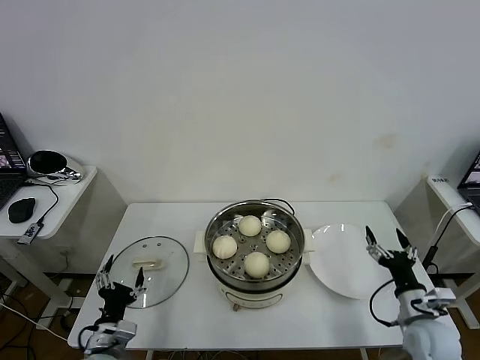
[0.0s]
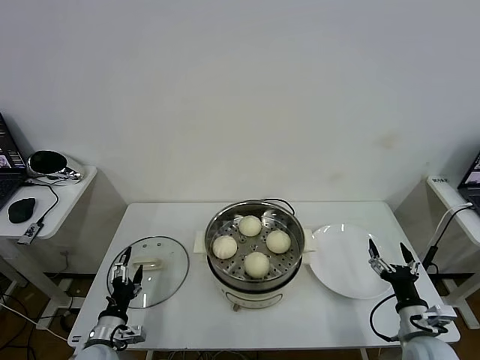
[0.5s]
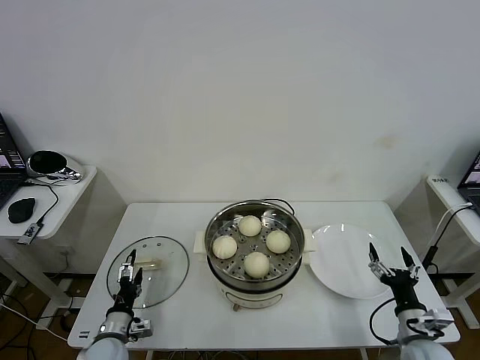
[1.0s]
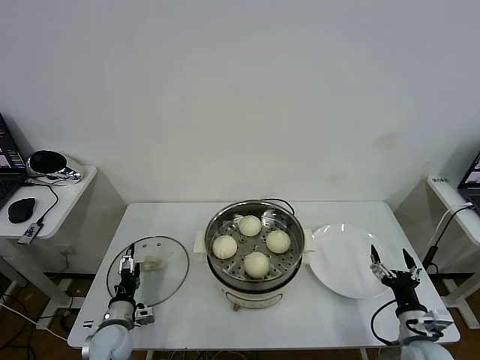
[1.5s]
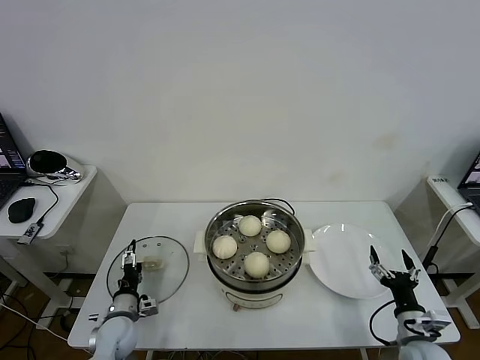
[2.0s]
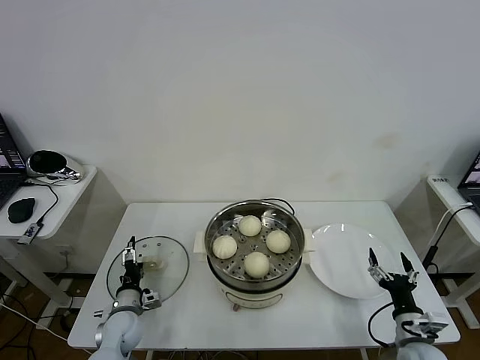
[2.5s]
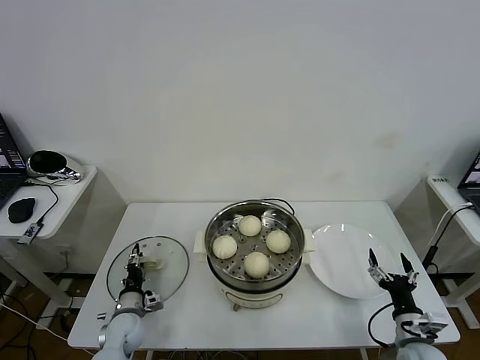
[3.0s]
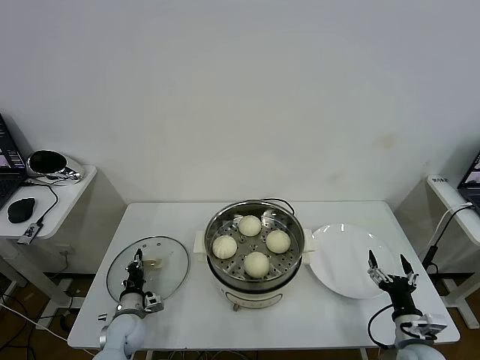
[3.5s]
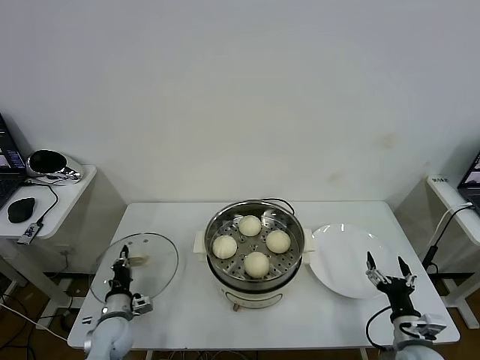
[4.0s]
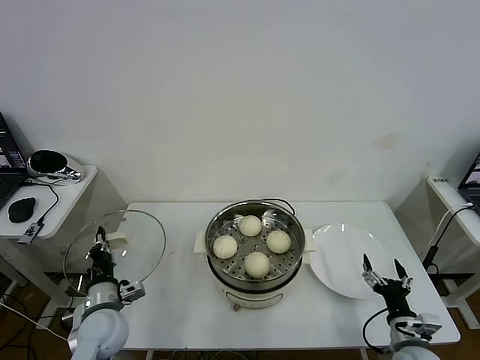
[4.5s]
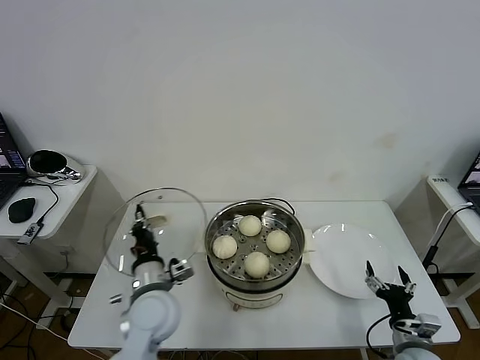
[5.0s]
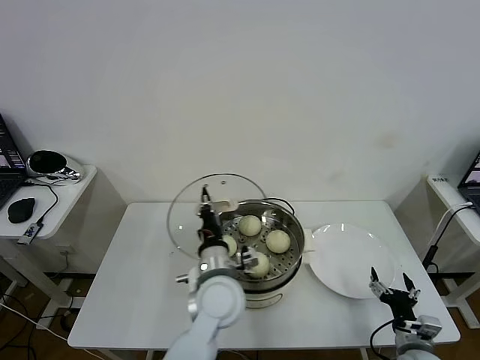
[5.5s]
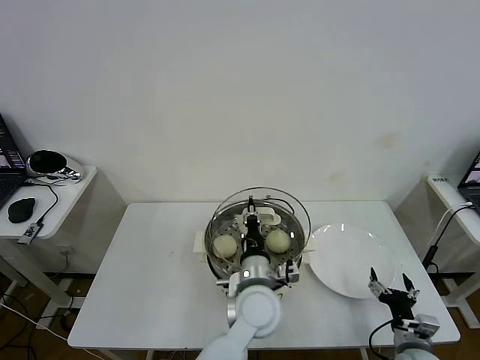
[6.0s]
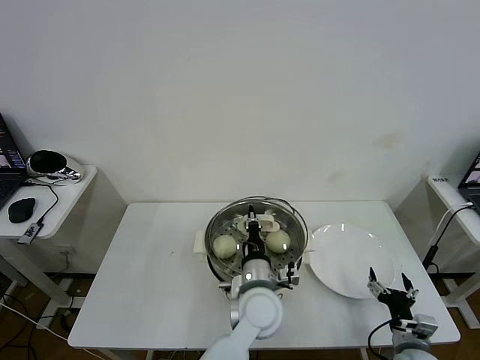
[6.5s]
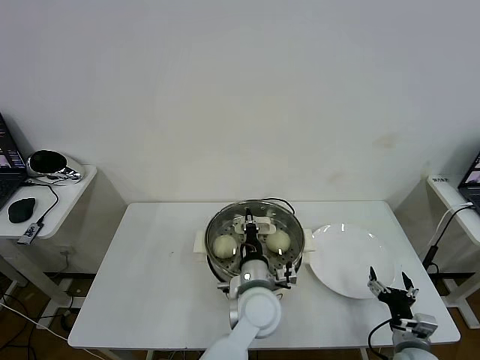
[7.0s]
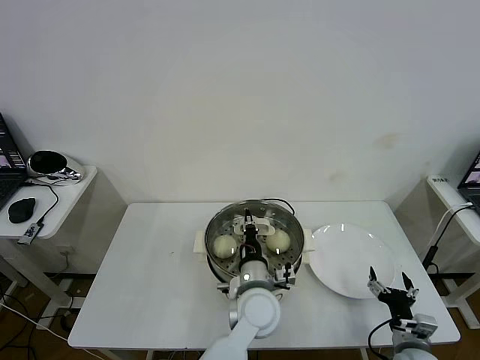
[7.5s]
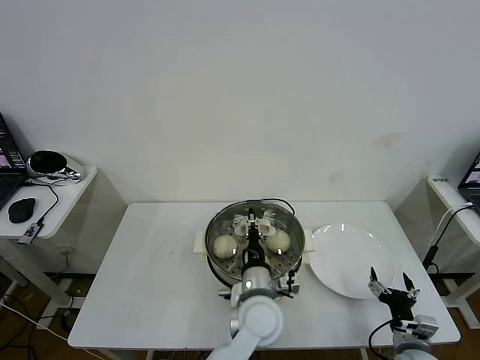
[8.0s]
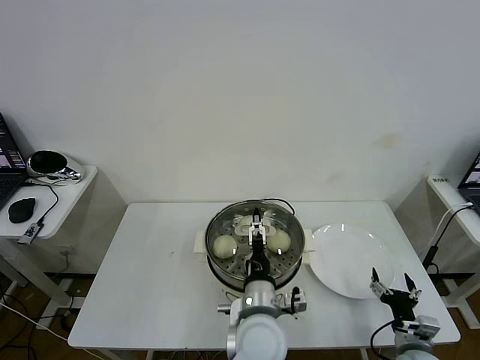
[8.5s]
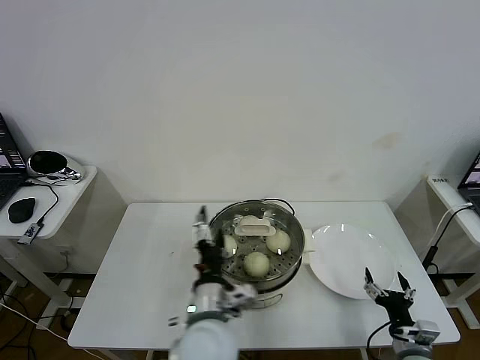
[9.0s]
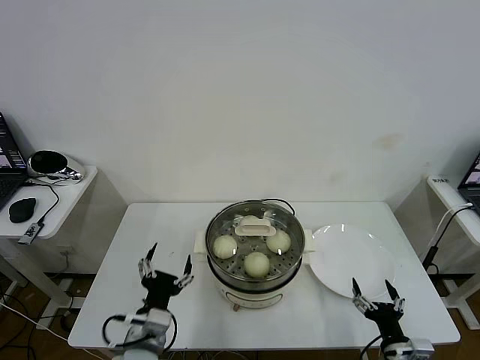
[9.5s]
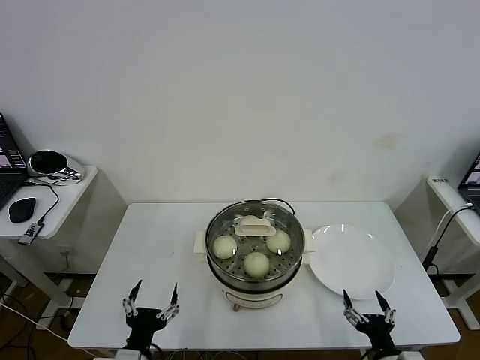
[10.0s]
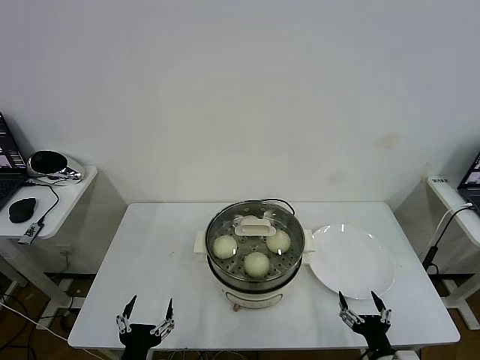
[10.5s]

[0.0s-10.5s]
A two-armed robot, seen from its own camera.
Task of the whole recording: take steamed baozi put them in steamer then cover it.
Step, 0.0s to 3.5s: Grasp the pot lid with left gripper.
Step, 4.0s to 8.5s: Place the pot lid on the steamer with left gripper.
0.0s to 2.0s: The left gripper travels forward and downward by approximately 15 cm, while the right gripper moves roughly 5 cm.
2.0s to 4.0s: The left gripper closes.
4.0s to 6.5s: The left gripper heads to the right and upward, covering some 40 cm.
6.5s to 8.5s: The left gripper moves backward, about 5 cm, and opens.
8.5s to 10.5s: The right gripper is displaced backward and to the left by some 10 cm; the left gripper moves to the left and backward, approximately 30 cm.

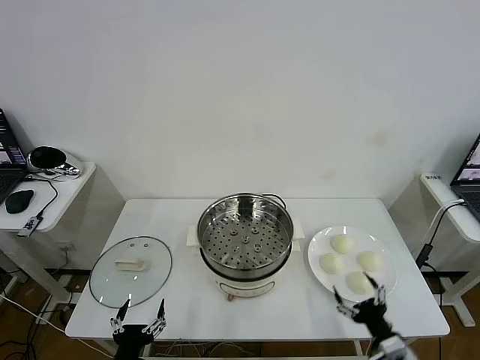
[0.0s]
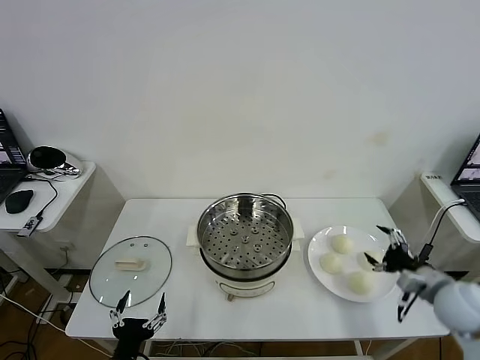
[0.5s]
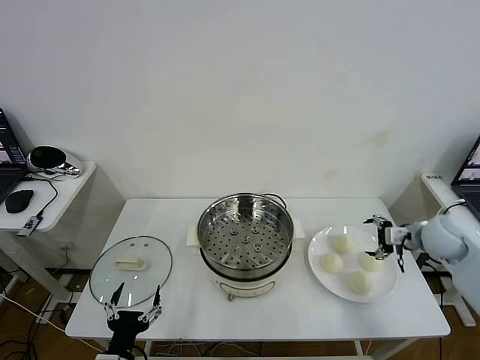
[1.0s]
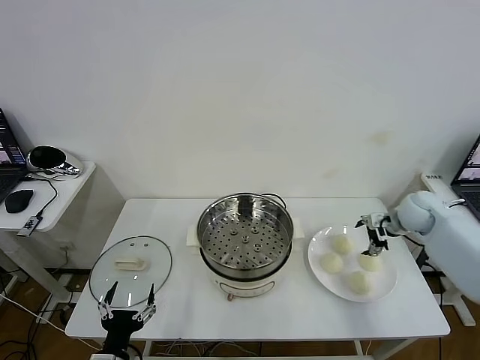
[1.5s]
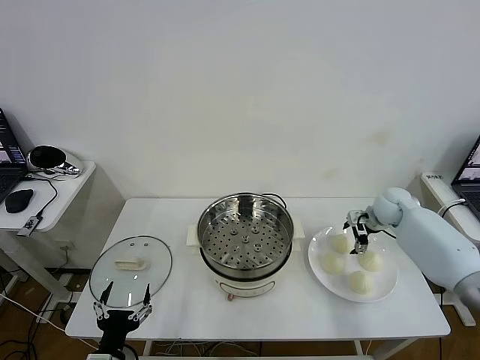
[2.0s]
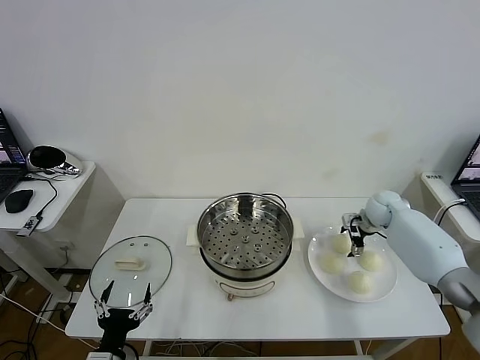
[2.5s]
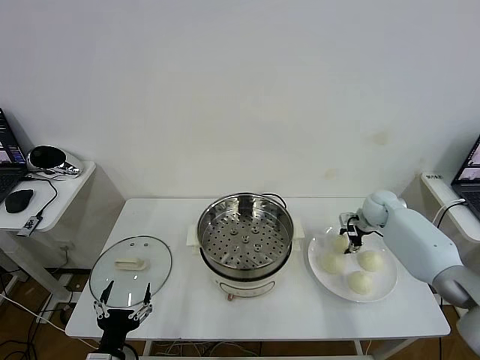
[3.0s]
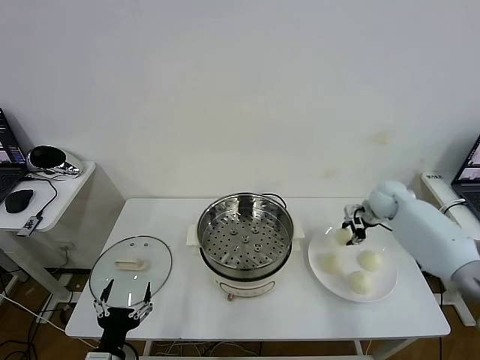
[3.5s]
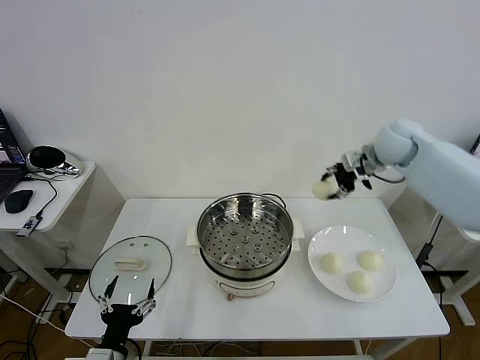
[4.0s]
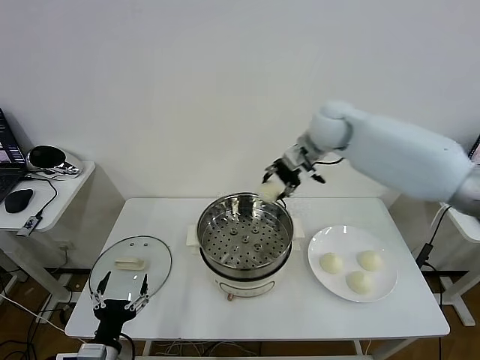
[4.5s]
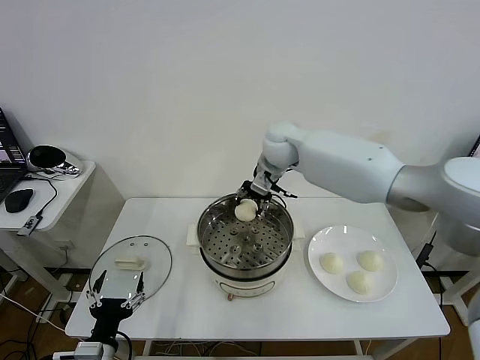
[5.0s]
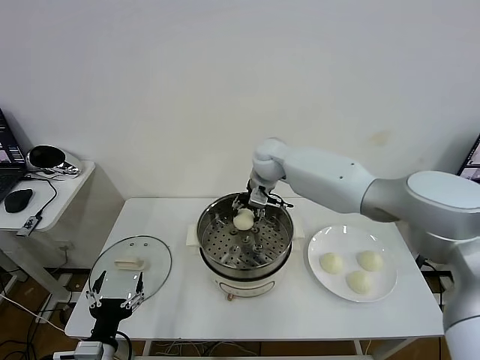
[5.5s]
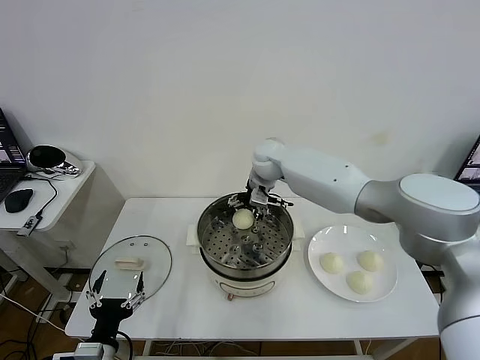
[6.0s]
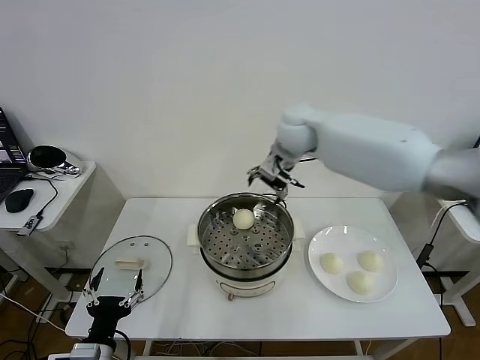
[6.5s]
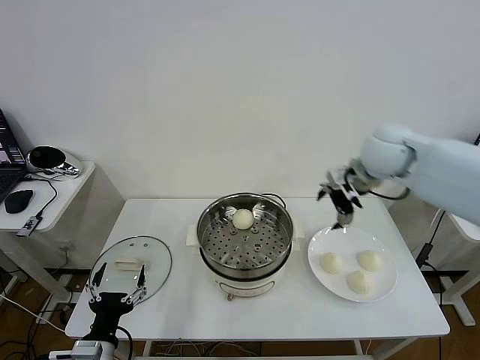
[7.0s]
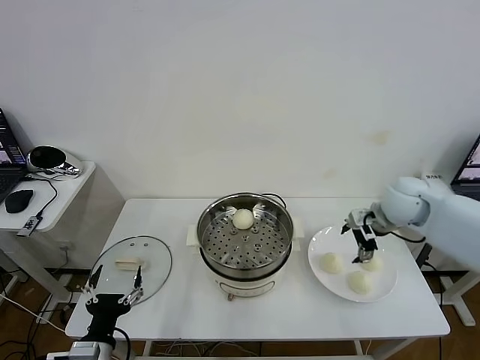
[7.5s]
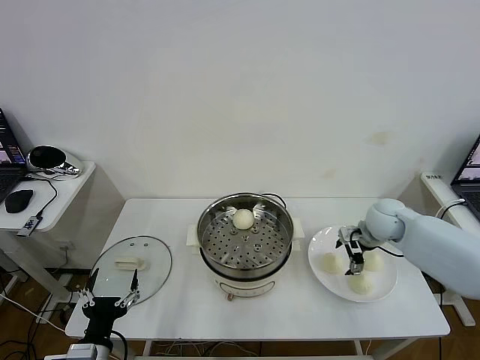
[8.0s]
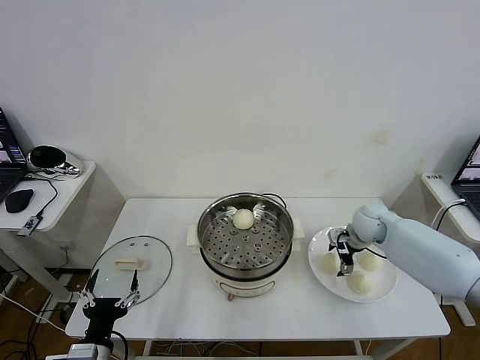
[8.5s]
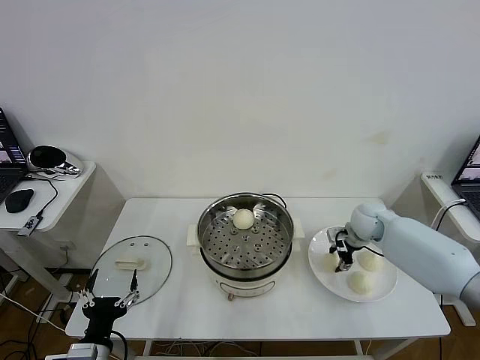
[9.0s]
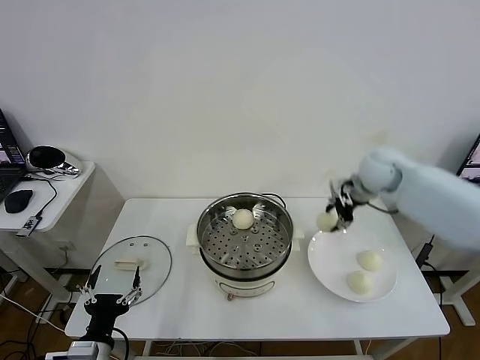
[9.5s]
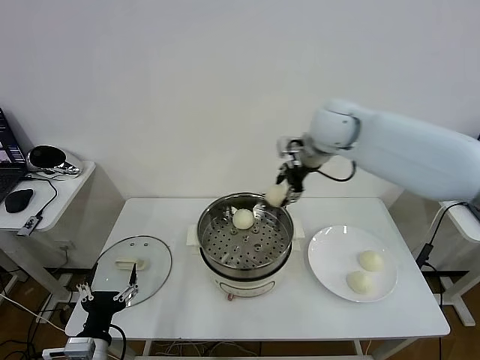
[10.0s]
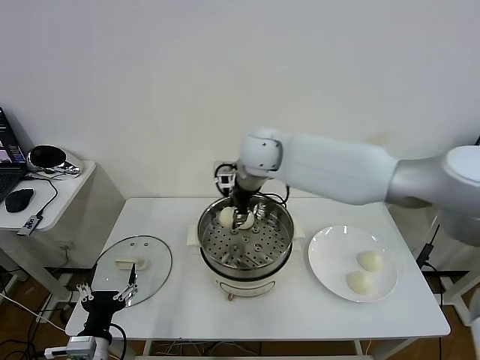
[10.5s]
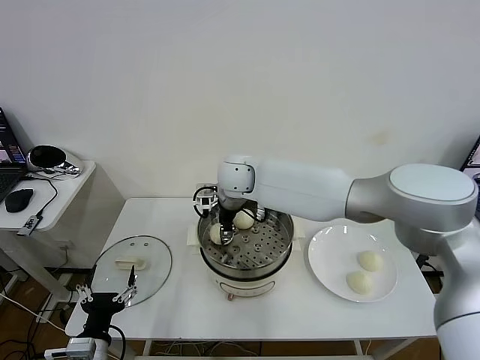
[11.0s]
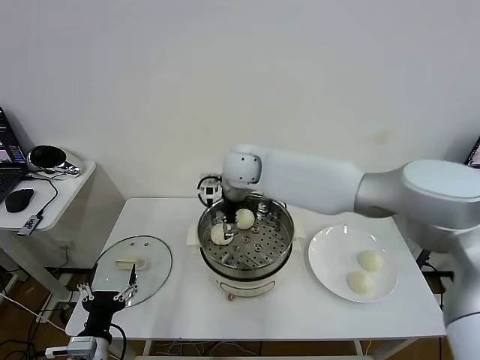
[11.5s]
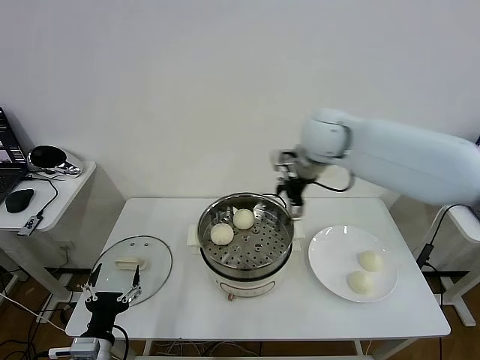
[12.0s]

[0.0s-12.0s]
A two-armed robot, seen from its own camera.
Task of the whole recording: take steamed baozi put them in steamer then cover it.
Step, 0.0s to 3.0s: Grasp the baozi in the plate with right gripper.
Step, 3.5s to 6.0s: Place the baozi on the steamer with right gripper.
Step, 6.5s to 8.5s: Grasp the baozi in the plate with right gripper.
Step, 9.0s to 11.0s: Place the baozi on the steamer with right gripper.
2.0s to 4.0s: The right gripper goes roughly 25 cm upward, and closes.
4.0s to 6.0s: The right gripper travels to the left by approximately 25 cm, and opens up.
6.0s to 8.0s: The right gripper shifts about 30 cm to the right, downward and backward.
8.0s to 10.0s: The right gripper goes roughly 30 cm upward and to the left, and closes its fingers.
10.0s to 12.0s: The right gripper goes to the left and returns, roughly 15 cm each way, and opens up.

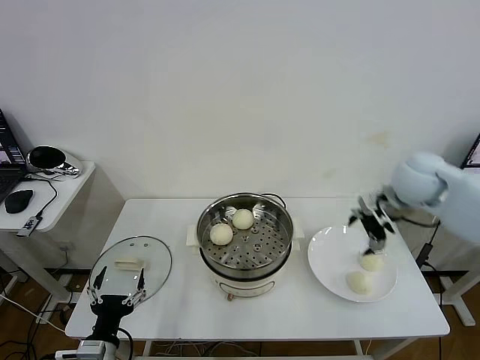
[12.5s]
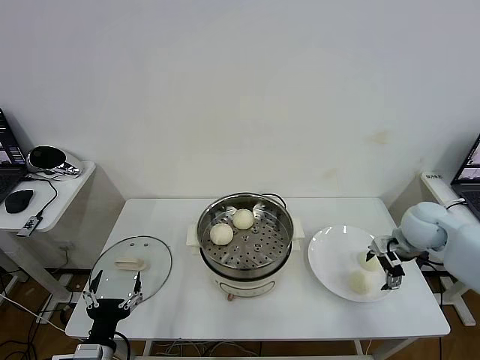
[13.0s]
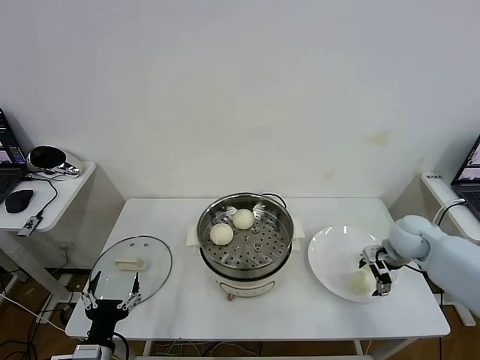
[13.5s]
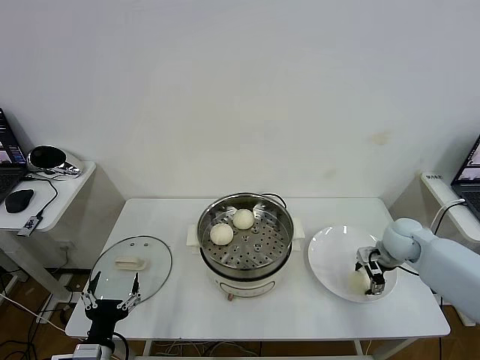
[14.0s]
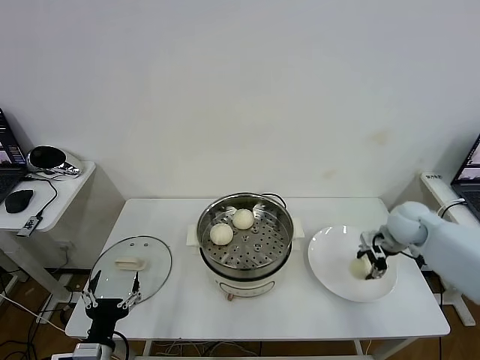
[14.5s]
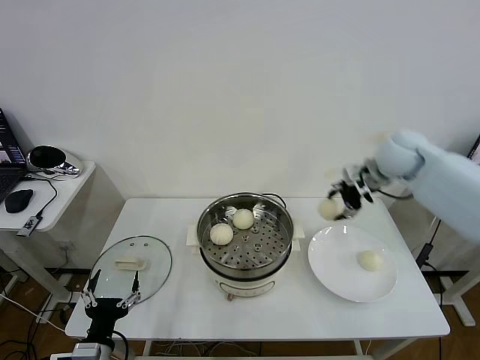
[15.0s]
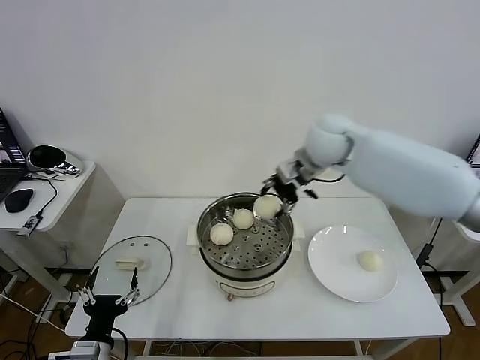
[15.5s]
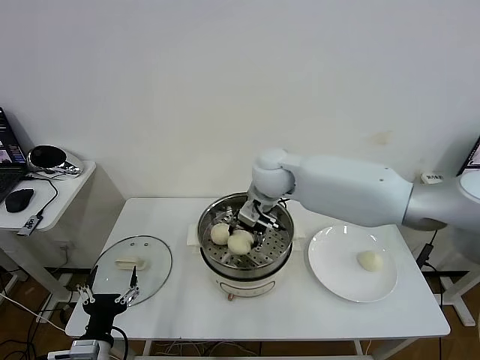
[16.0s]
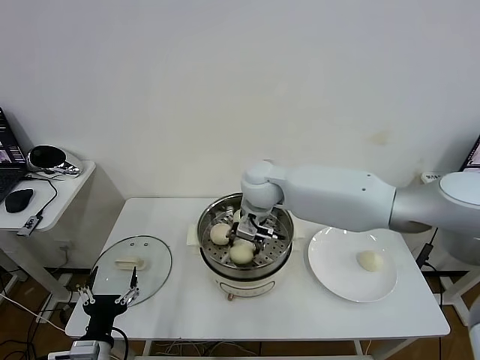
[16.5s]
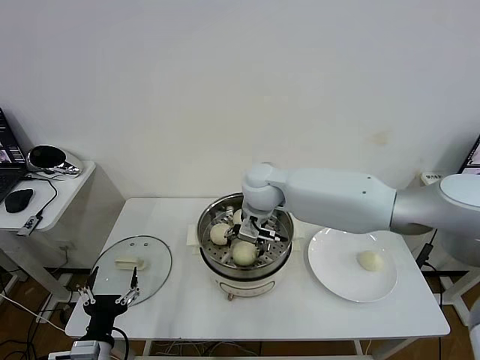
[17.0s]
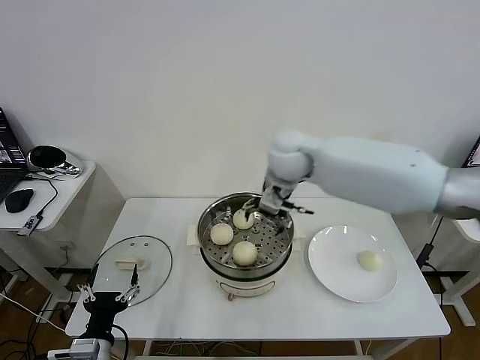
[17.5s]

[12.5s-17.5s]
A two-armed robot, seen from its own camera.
Task of the whole recording: take steamed baozi put them in steamer then cover it.
Step, 12.5s to 14.0s: Grasp the baozi in the plate with right gripper.
Step, 14.5s to 17.0s: Place the baozi on the steamer with right gripper.
12.5s to 15.0s: The right gripper heads forward and to the left, covering about 10 cm, reaches about 15 cm downward, then returns, and closes.
15.0s to 17.5s: The right gripper heads to the left, covering approximately 20 cm, and opens its fingers.
